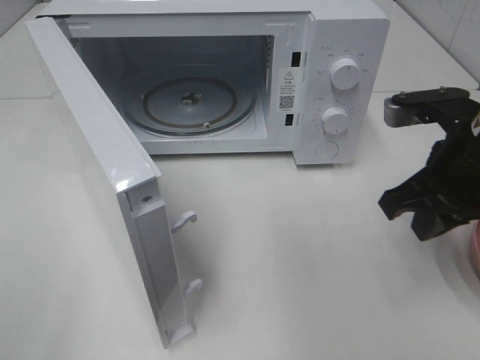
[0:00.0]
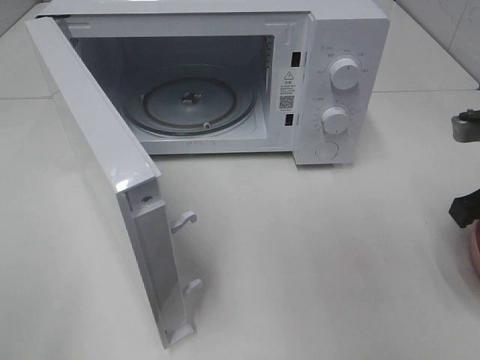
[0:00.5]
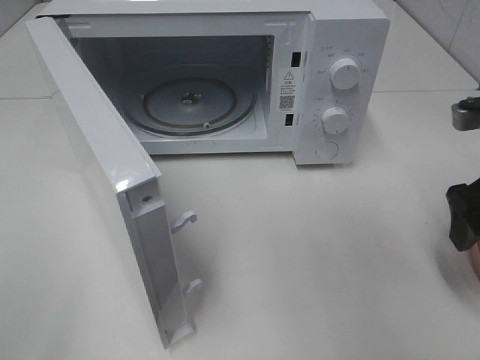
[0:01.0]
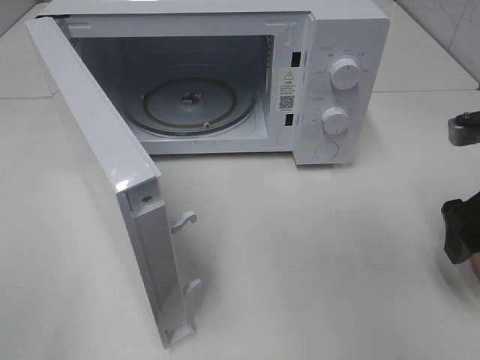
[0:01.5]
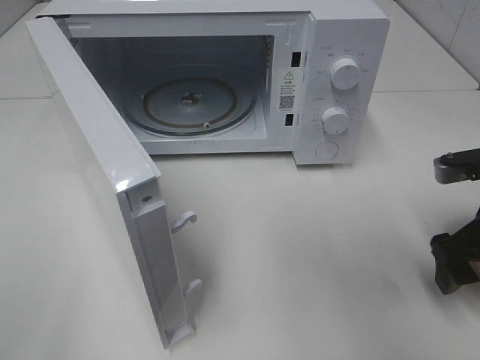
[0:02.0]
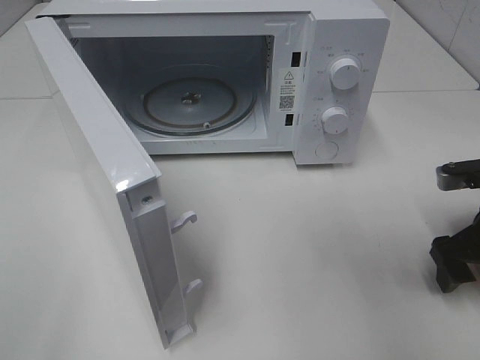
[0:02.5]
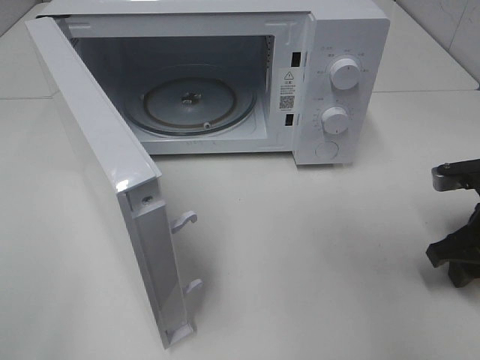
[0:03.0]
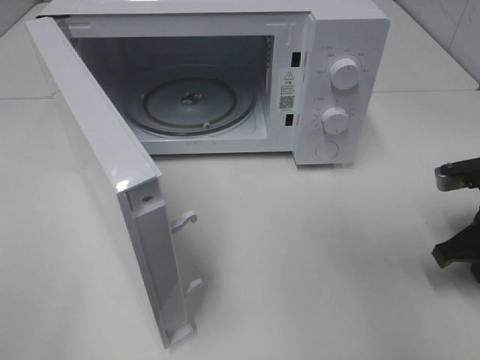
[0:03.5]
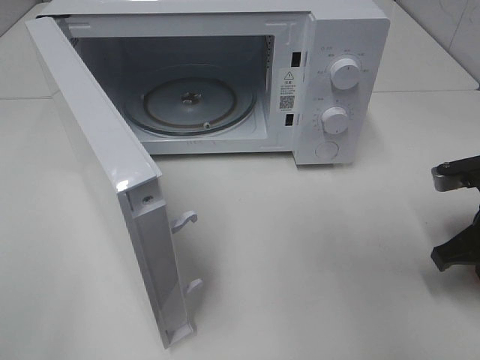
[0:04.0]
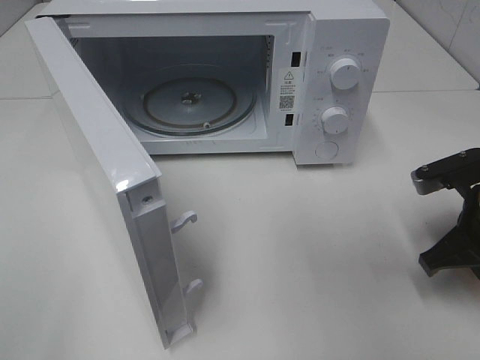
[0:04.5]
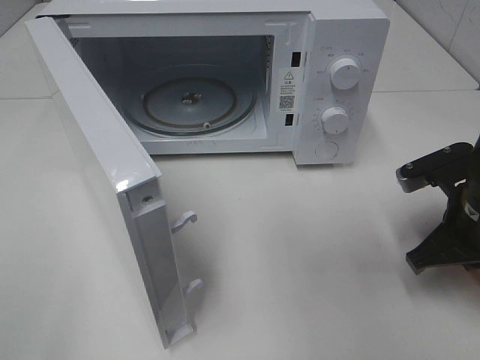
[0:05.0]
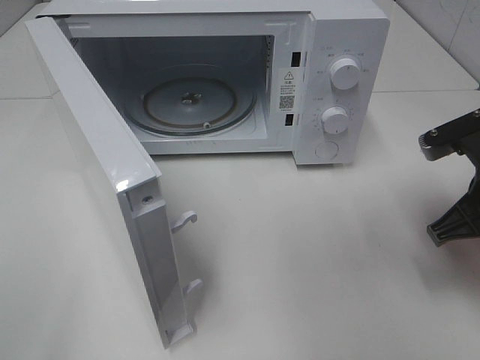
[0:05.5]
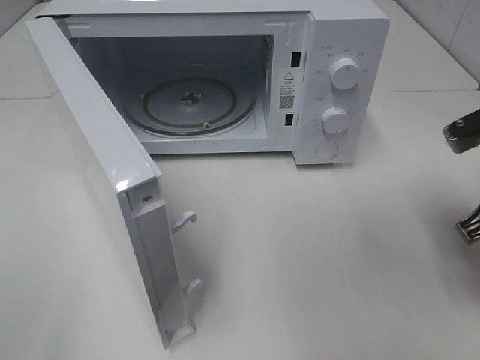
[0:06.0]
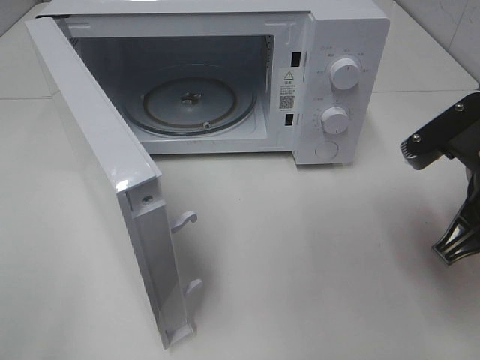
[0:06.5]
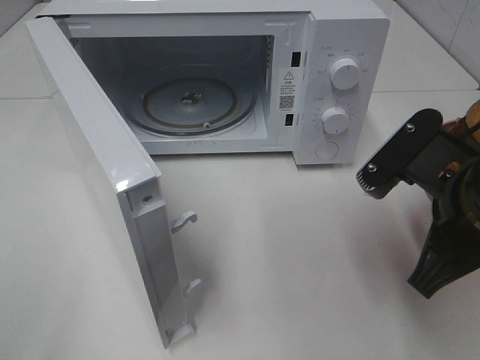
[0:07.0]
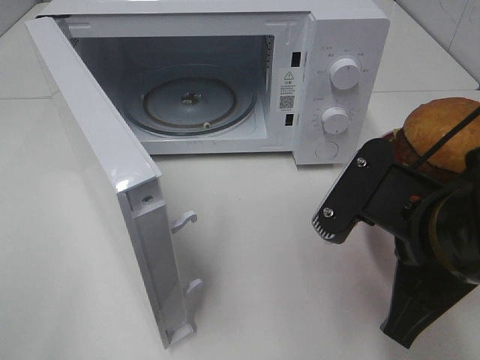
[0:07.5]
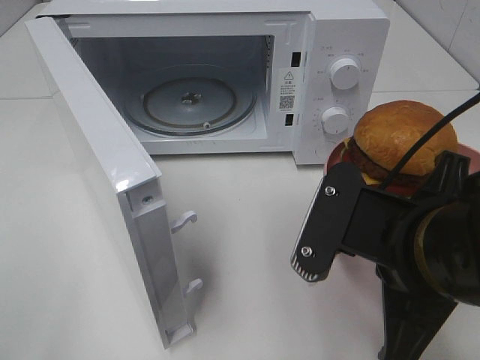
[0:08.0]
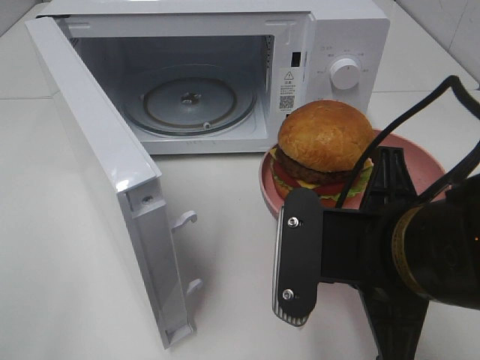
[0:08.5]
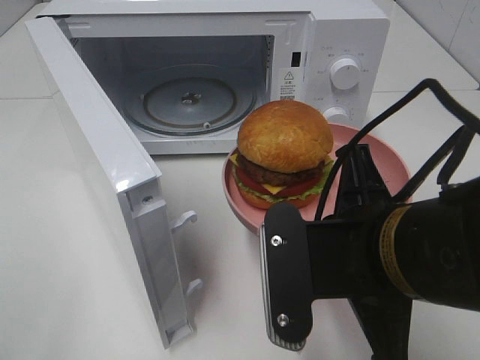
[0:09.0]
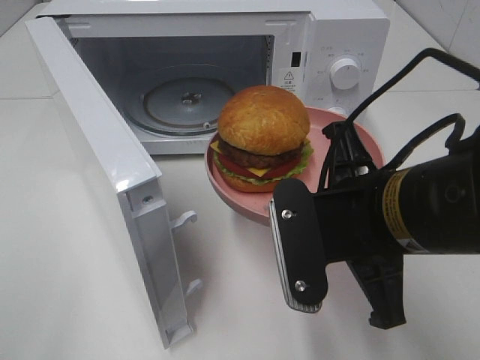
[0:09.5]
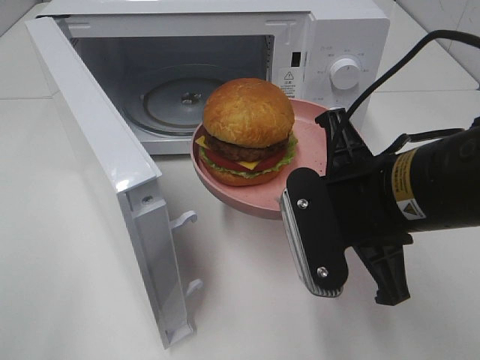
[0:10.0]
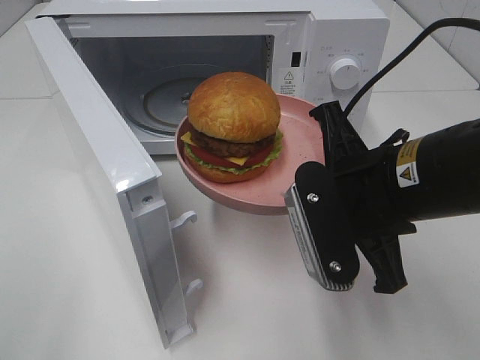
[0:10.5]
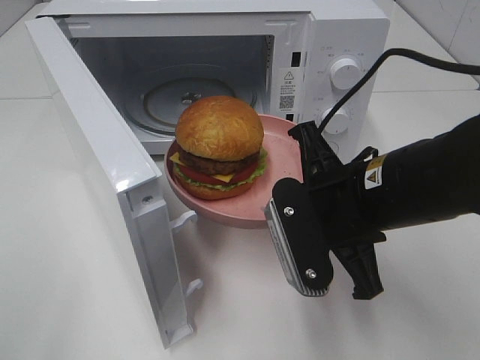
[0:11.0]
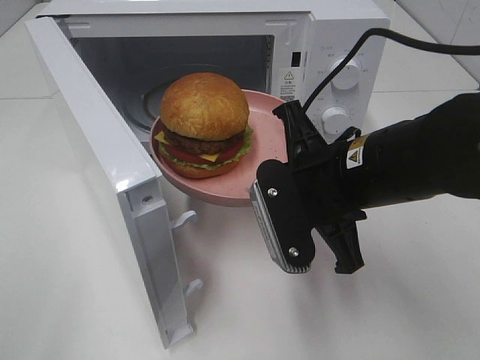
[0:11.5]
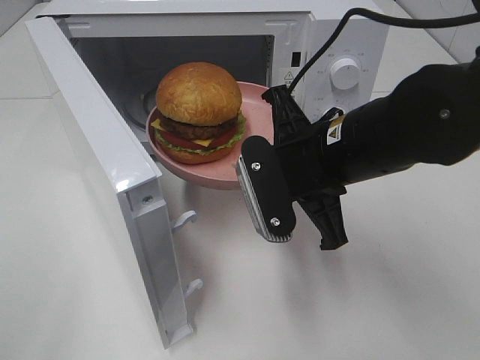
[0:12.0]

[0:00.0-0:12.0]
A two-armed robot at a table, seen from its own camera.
Task of the whole recording: Heat the burger.
Step, 0:00.0 to 0:03.5: Right hand: grab the plate with the hamburger.
0:00.0 to 0:02.0: The right gripper heads to the right and downward, covering roughly 10 cm, and opens its fingers.
0:02.0 to 0:04.0: The right gripper closes its fingers.
0:04.0 to 0:06.0: The right gripper shifts some 5 cm upward.
0:06.0 to 0:08.0: The right gripper heads to the left and backward, covering some 15 cm.
0:08.0 to 0:10.0: The right gripper moves forward, approximately 5 cm.
0:10.0 to 0:12.0: The right gripper shifts approximately 5 cm forward.

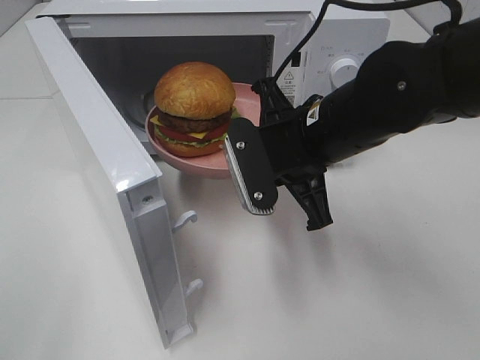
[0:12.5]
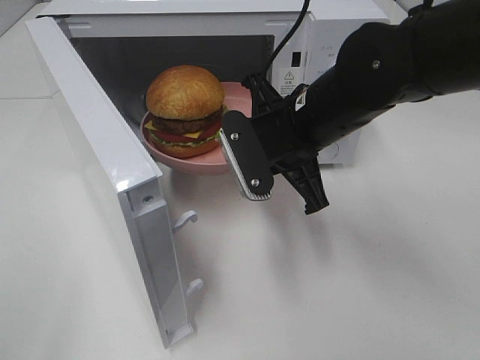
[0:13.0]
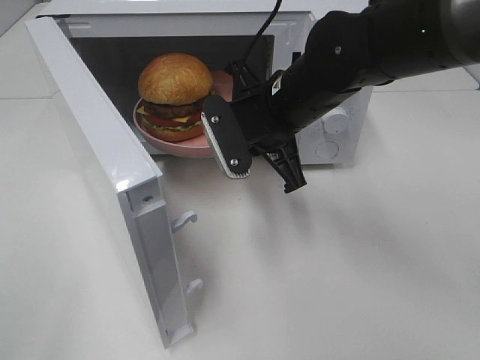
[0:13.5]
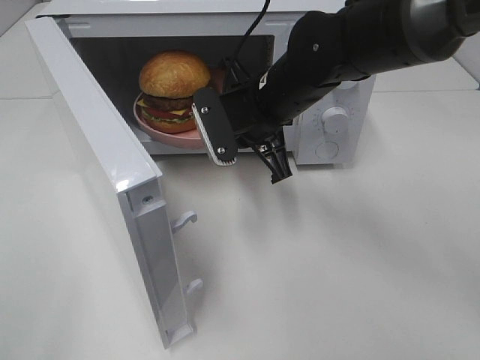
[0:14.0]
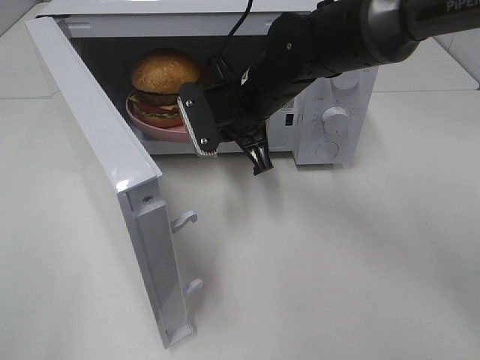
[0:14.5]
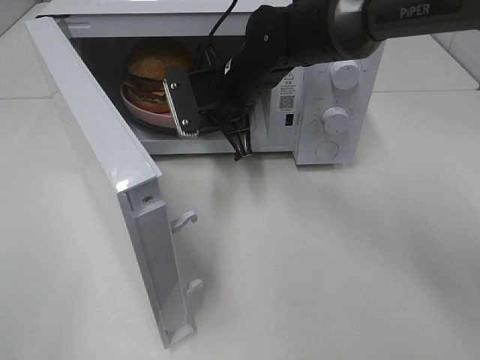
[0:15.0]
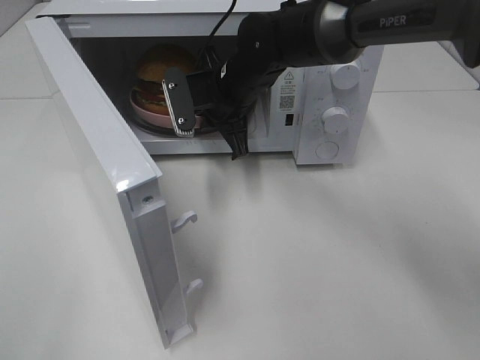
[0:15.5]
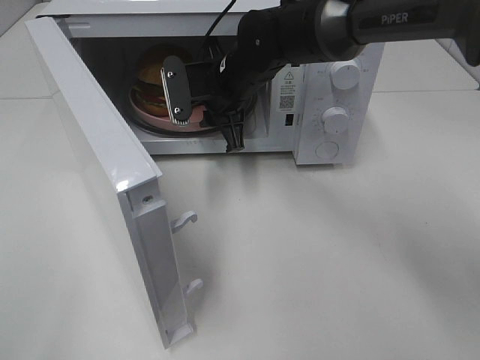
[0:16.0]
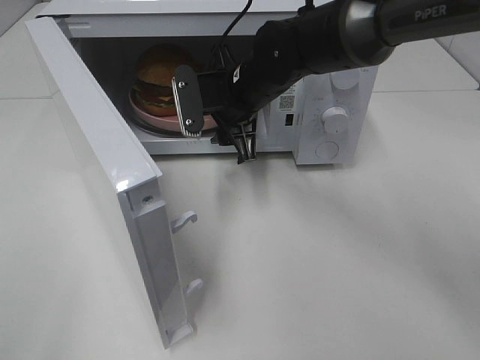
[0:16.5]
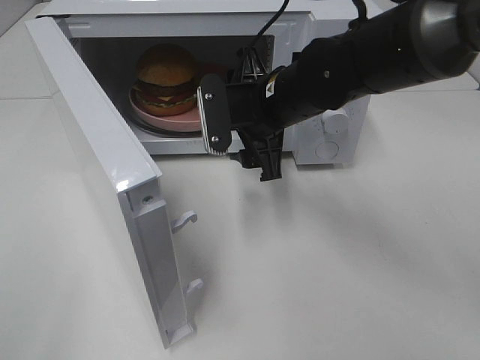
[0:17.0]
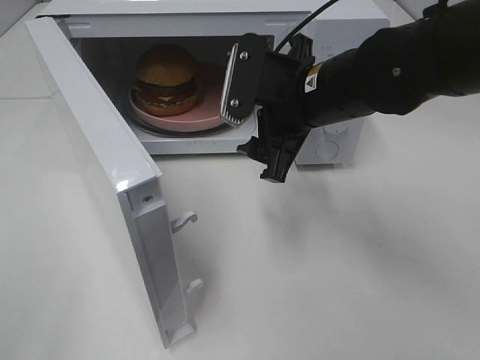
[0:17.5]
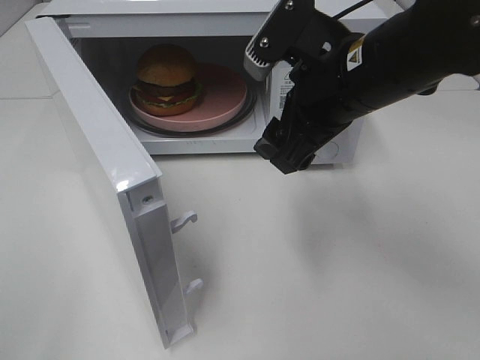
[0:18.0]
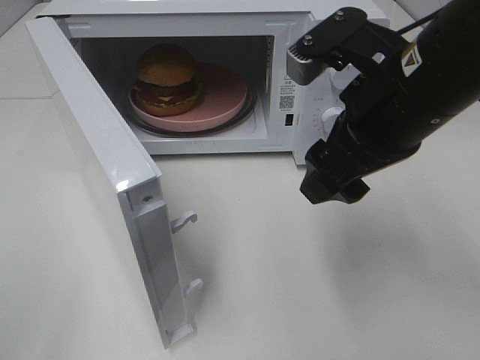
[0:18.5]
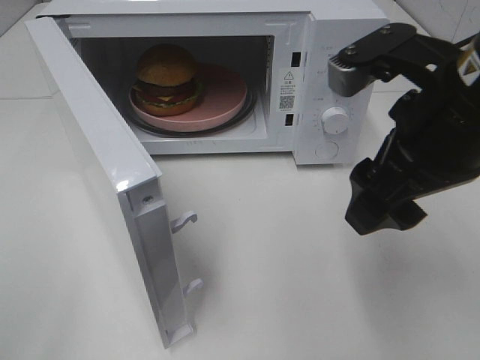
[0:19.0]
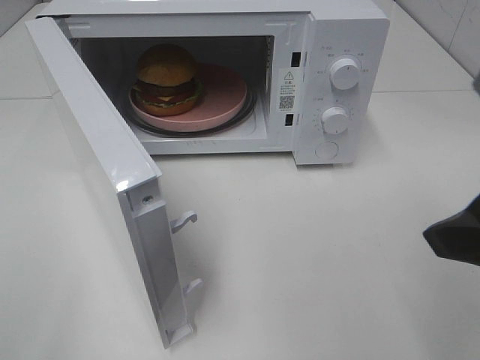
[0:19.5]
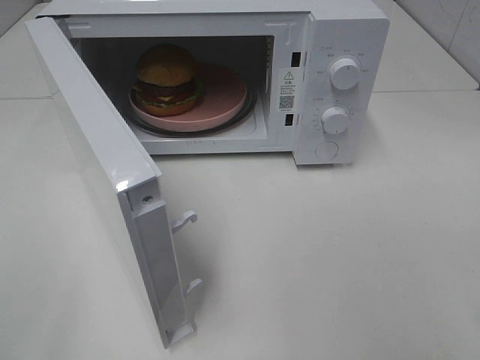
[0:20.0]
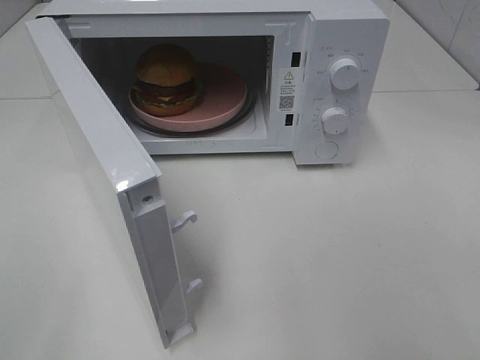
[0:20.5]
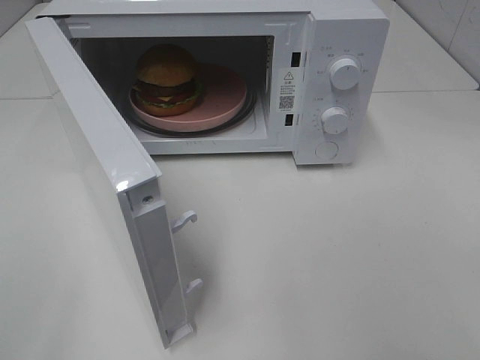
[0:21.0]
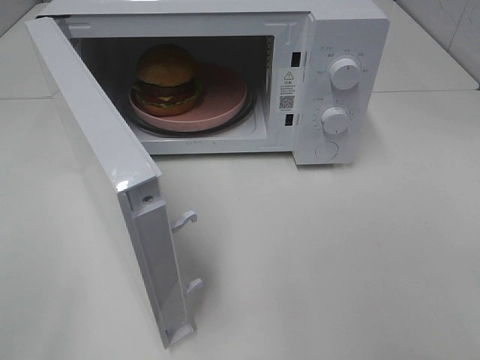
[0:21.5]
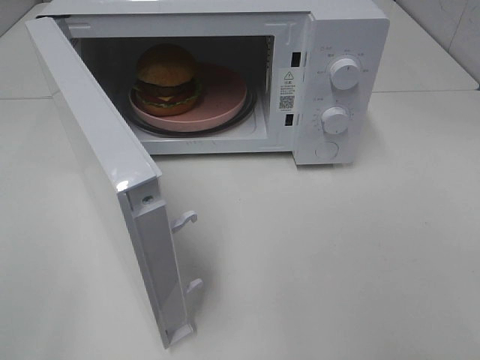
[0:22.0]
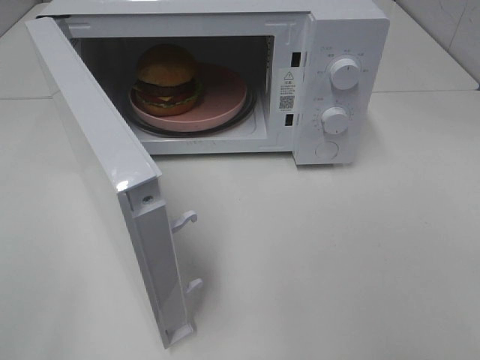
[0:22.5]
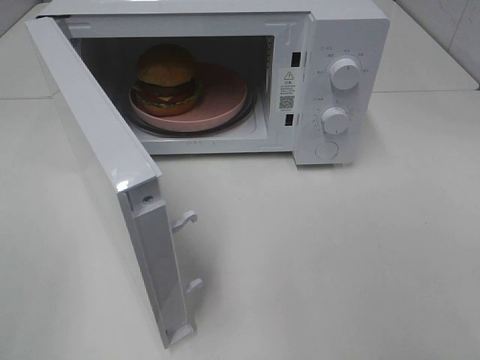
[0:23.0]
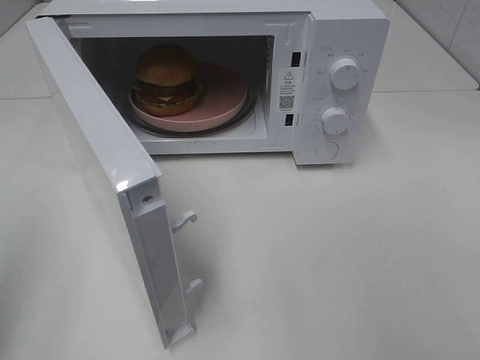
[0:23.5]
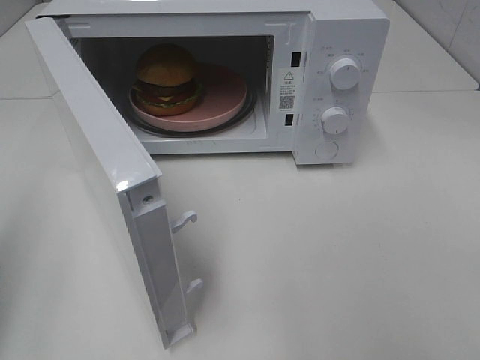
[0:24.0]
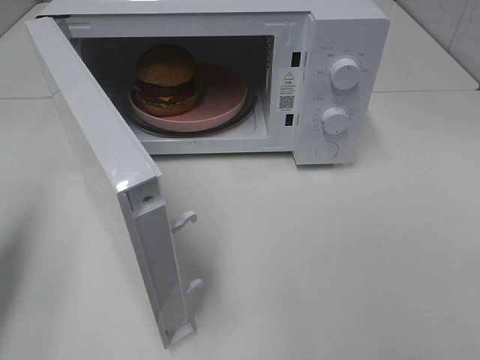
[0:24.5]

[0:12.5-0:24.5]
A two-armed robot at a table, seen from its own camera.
Task of the whole recording: Heat the burger.
Step, 0:12.5 to 0:15.5: Right hand: place the plate in the microwave.
0:12.5 to 0:14.5: The right gripper goes some 10 cm forward and to the left.
0:14.5 to 0:16.5: The right gripper opens.
0:16.5 to 0:18.5: The right gripper heads backward, to the right and upward, covering some 20 cm.
0:18.5 to 0:20.5: The right gripper heads backward and to the right, covering approximately 25 cm.
0:22.5 to 0:24.5: The left gripper goes approximately 20 cm forward, and closes.

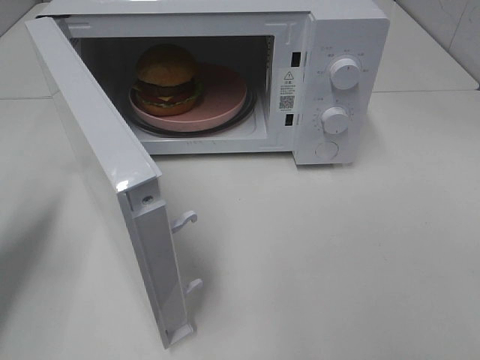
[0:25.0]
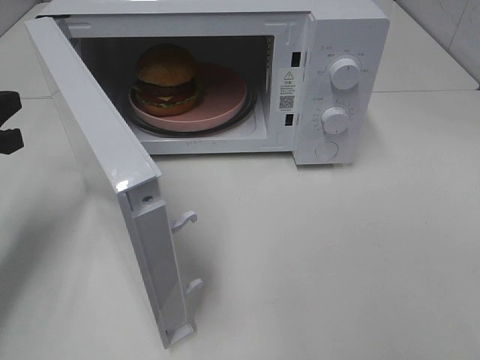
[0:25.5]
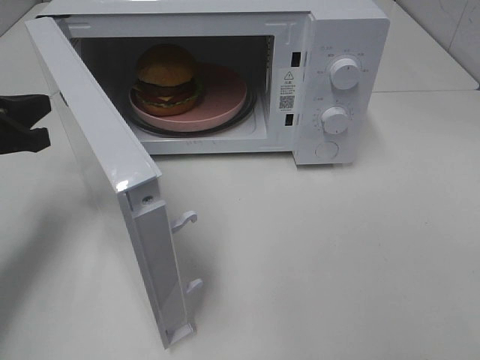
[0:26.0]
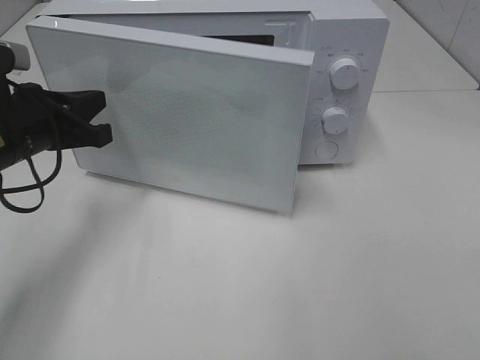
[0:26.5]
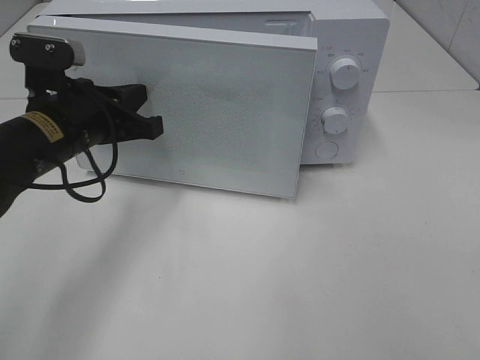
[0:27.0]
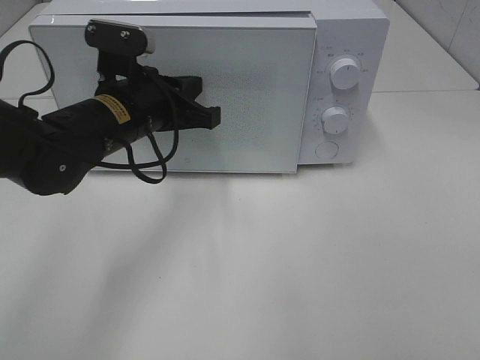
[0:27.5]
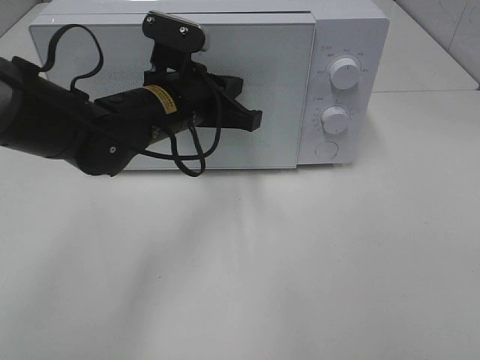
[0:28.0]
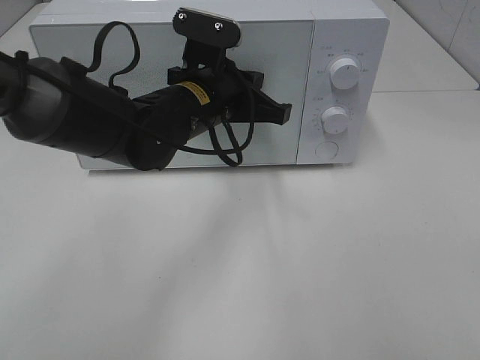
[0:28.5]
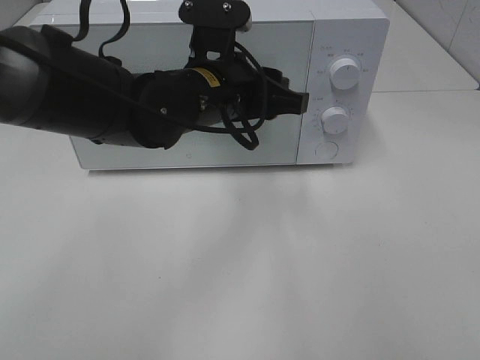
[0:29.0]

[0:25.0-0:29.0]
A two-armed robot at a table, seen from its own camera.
Task of the whole recording: Heat the burger.
Step, 0:25.0 to 0:28.5: Left hand: close the microwave door.
0:25.0 to 0:27.0: The left gripper shifts approximately 15 cm to the right and forward.
0:27.0 to 0:29.0: The left gripper heads to the right, covering about 15 cm, and opens up.
